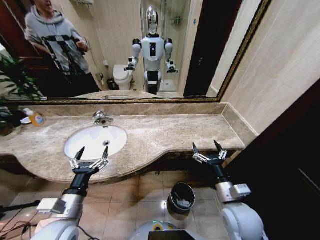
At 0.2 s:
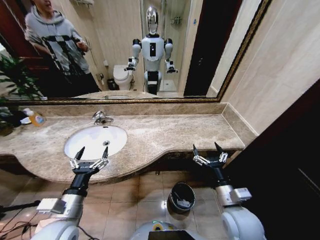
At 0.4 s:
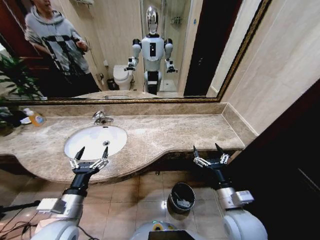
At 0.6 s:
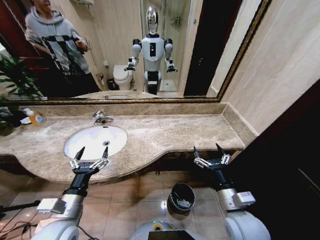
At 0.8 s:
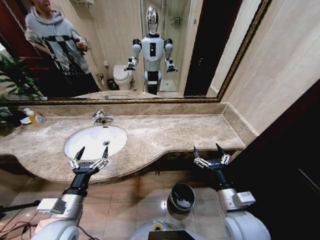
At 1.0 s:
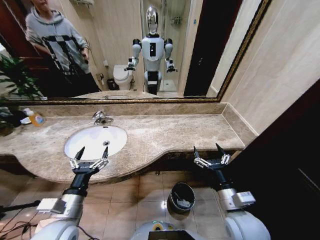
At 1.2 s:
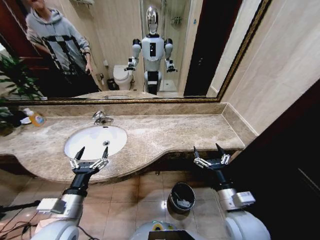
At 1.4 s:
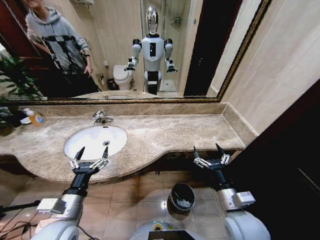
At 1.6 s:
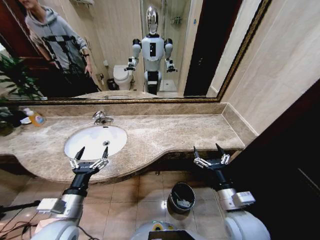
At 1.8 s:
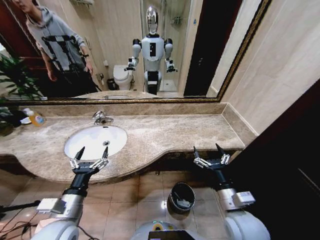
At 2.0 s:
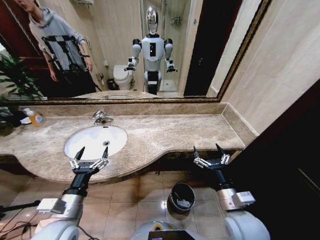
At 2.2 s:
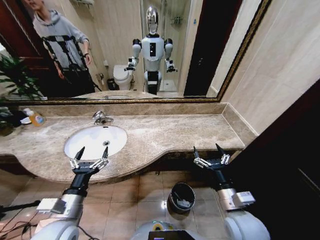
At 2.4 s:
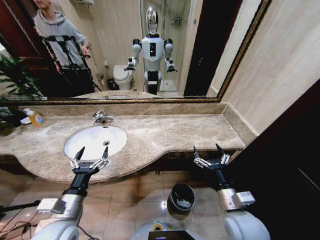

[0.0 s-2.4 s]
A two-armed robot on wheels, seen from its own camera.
Task of the whole recording: Pick up the trash from the sink and place it in the trash bin.
0.0 to 1.2 s: There are only small adjustments of the grippers.
1.2 to 2.4 s: The two grippers keep their place.
